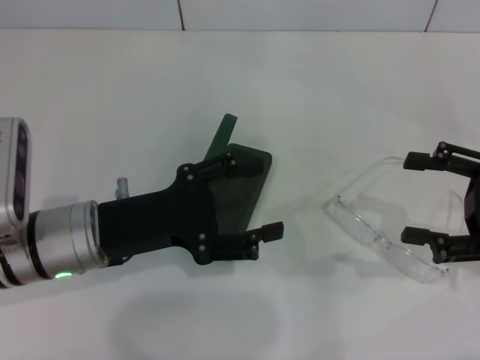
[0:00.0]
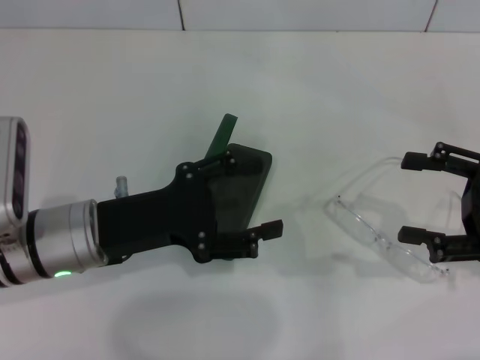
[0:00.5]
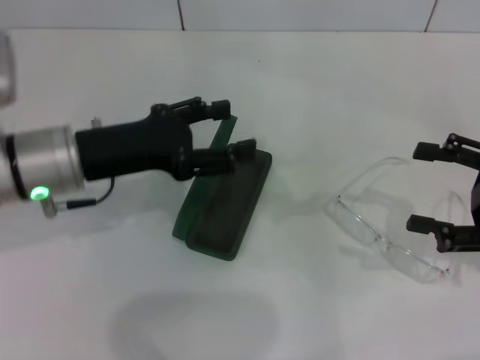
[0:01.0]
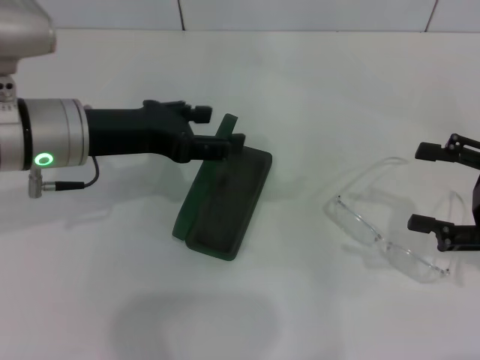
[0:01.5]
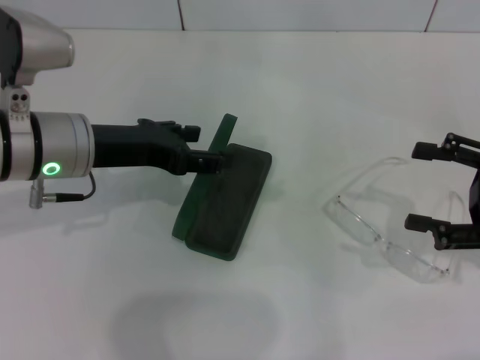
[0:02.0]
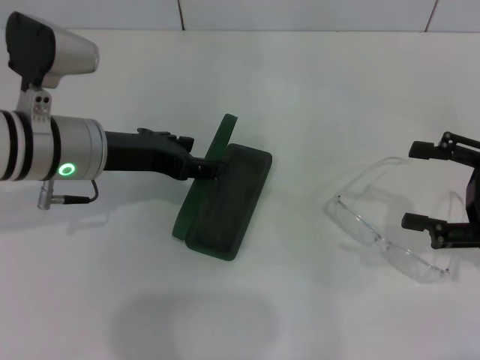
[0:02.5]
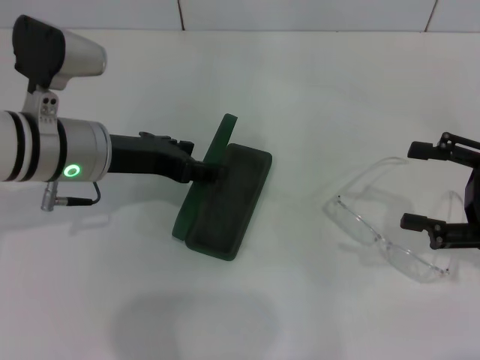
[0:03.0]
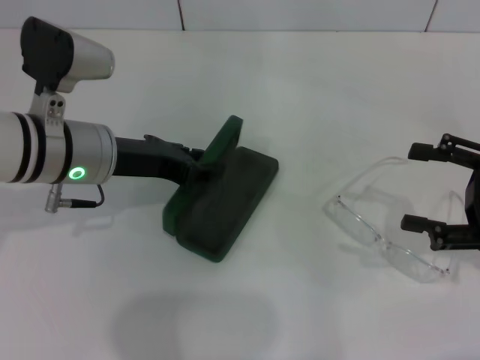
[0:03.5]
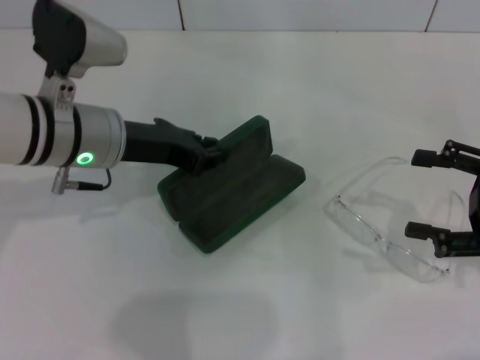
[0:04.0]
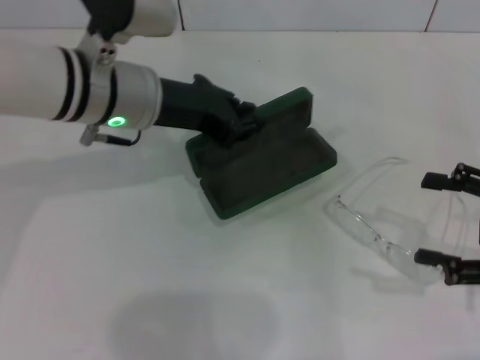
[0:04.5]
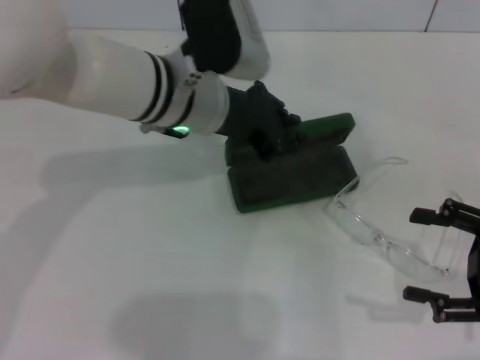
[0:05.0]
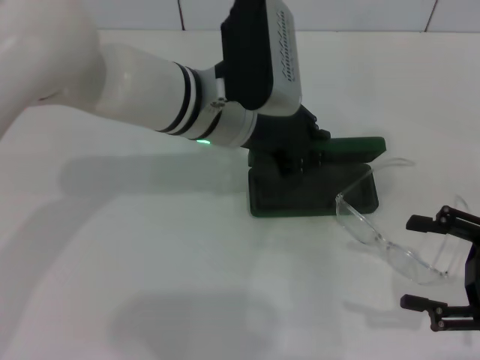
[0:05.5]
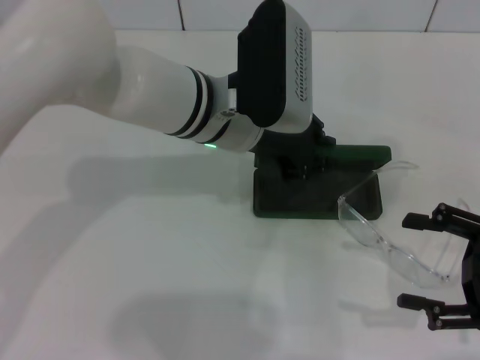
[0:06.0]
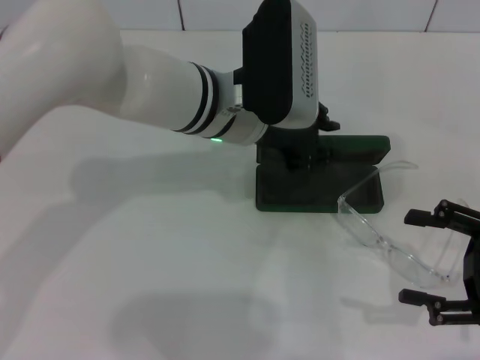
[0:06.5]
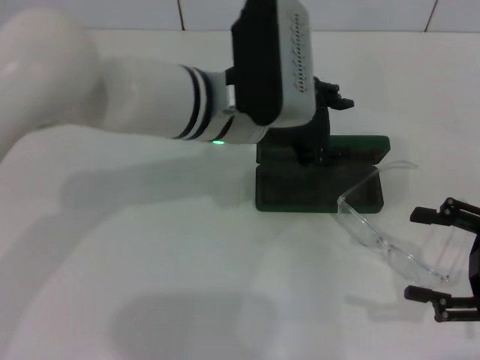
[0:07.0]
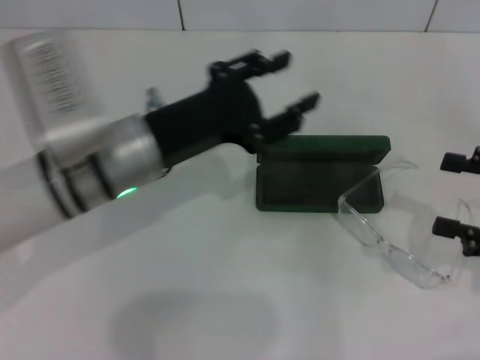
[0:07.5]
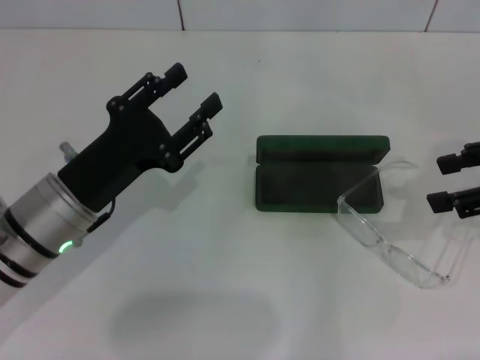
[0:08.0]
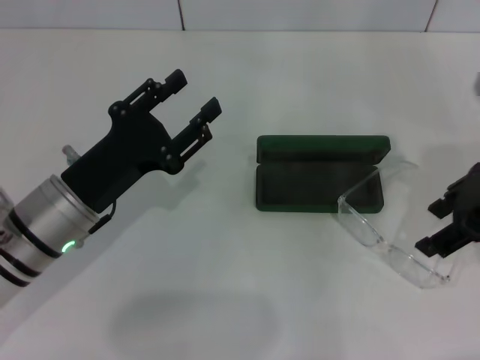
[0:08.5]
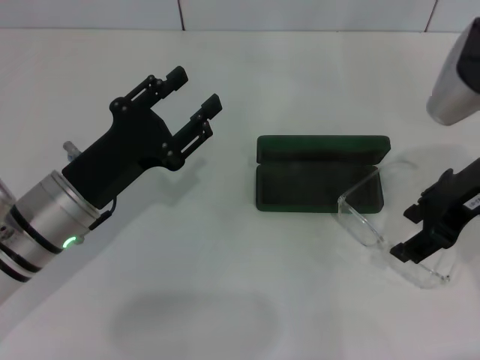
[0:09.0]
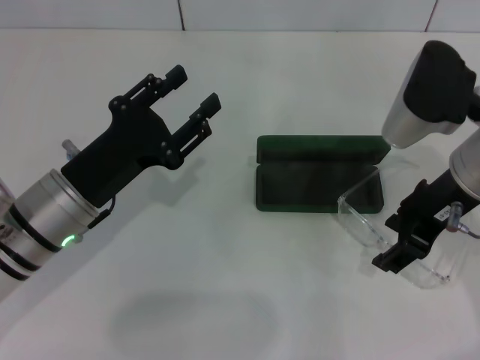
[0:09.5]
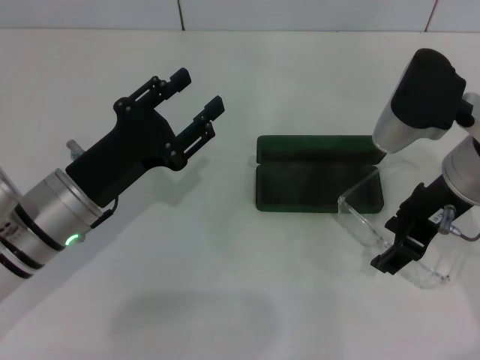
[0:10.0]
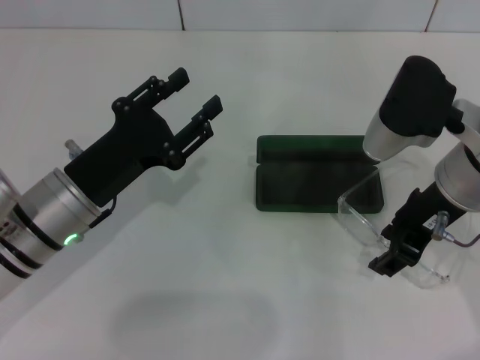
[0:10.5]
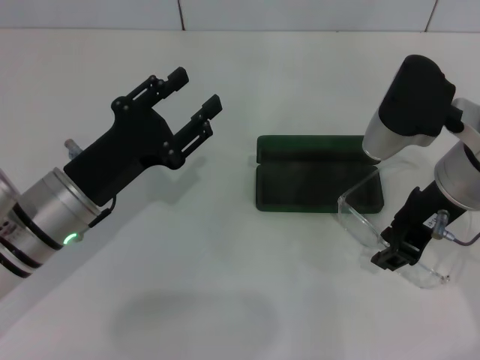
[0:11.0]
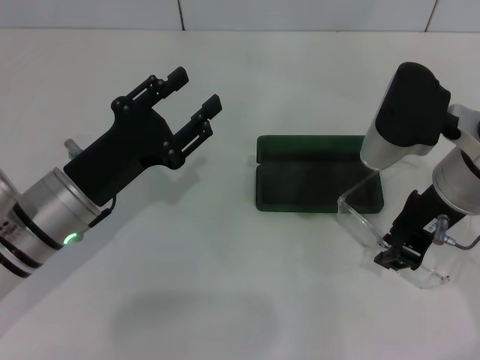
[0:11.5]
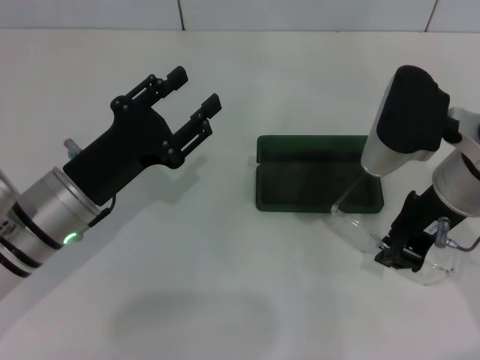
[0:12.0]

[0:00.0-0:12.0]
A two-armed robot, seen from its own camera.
Step, 0:00.0 to 0:03.0: Grab the glasses case with your left hand.
Step, 0:03.5 to 0:06.0: Place the glasses case in the center of the table with your left hand.
0:00.0 to 0:02.0: The left gripper travels forward and upward by some 10 cm.
0:02.0 to 0:04.0: The left gripper closes its fingers.
0:04.0 to 0:06.0: The right gripper shifts by some 5 cm. The left gripper shifts some 15 cm to the right.
0:06.0 to 0:08.0: The left gripper travels to the left, backward and downward by some 20 cm, and opens. The right gripper shifts roughly 15 cm upward and forward.
0:08.0 to 0:10.0: The right gripper shifts roughly 15 cm to the left.
0:10.0 to 0:12.0: The right gripper closes.

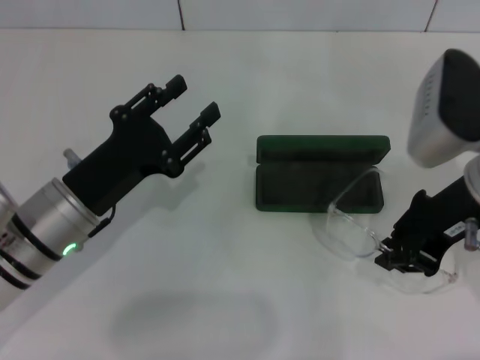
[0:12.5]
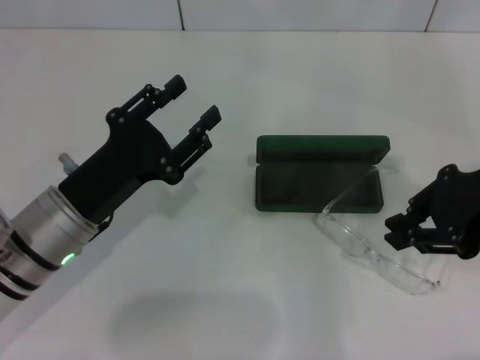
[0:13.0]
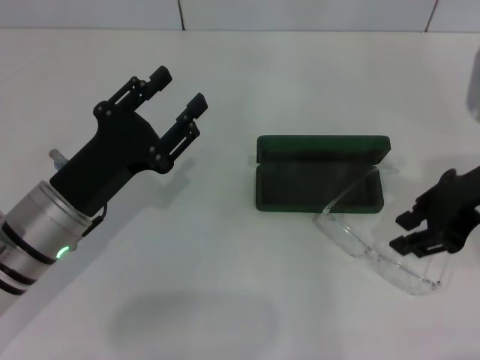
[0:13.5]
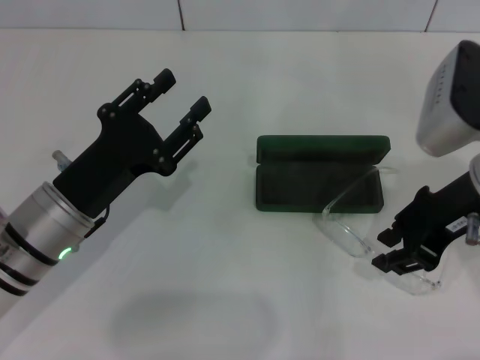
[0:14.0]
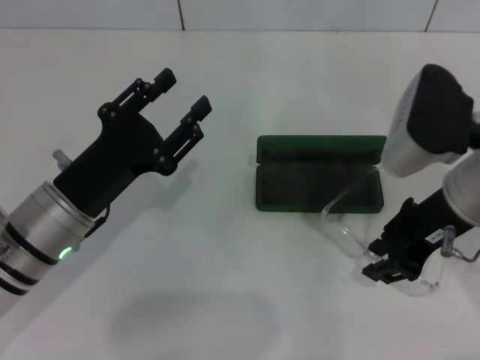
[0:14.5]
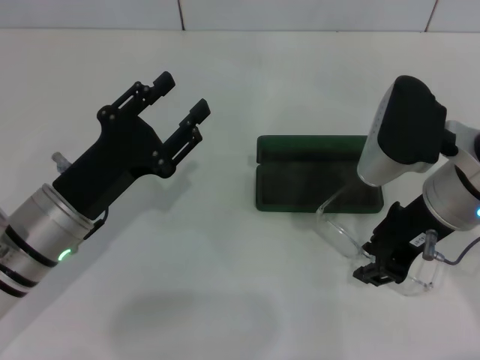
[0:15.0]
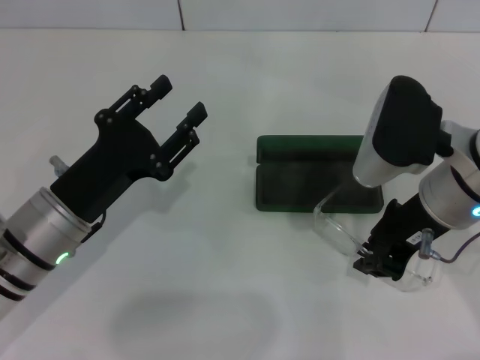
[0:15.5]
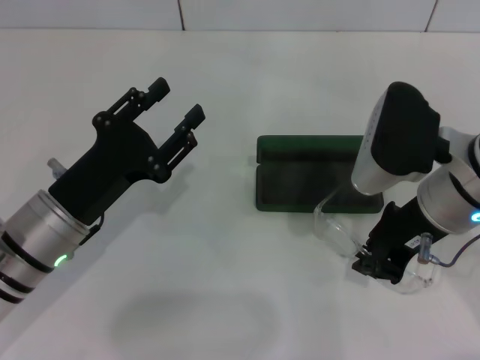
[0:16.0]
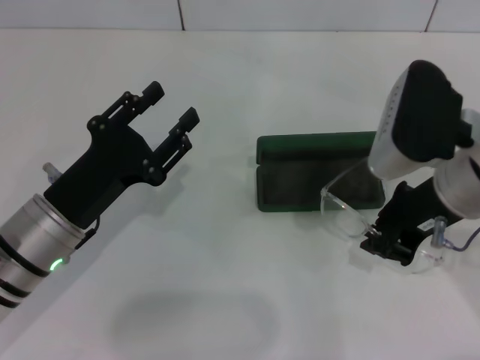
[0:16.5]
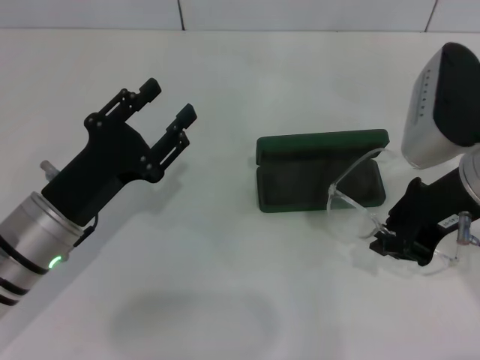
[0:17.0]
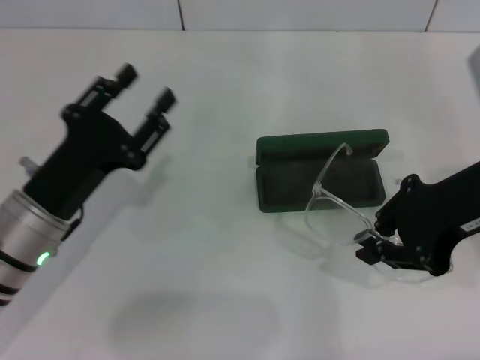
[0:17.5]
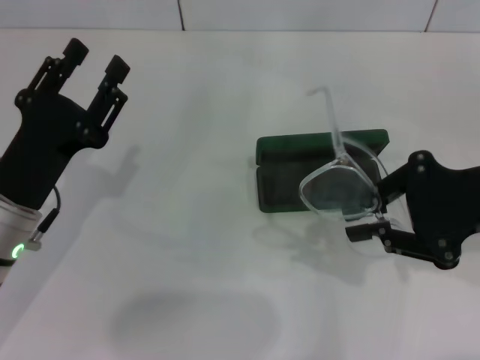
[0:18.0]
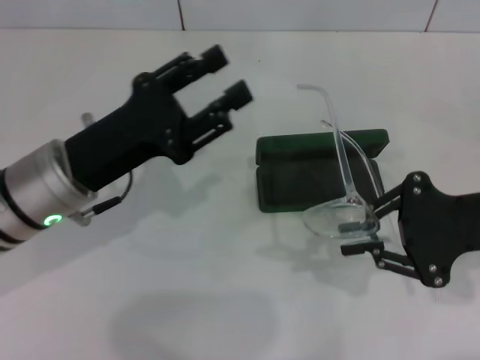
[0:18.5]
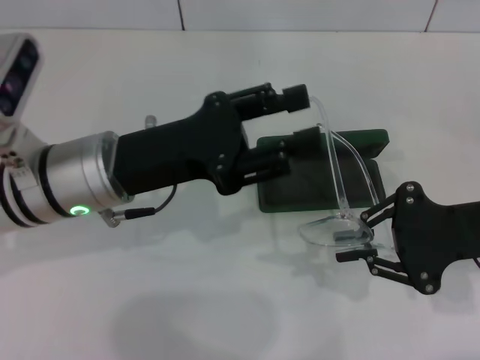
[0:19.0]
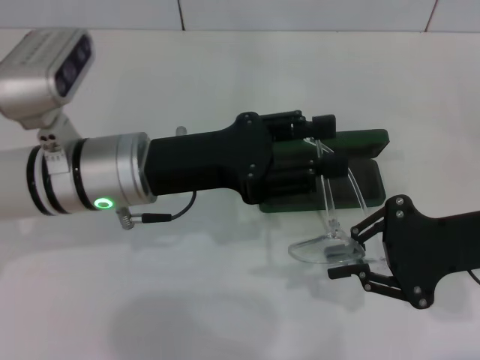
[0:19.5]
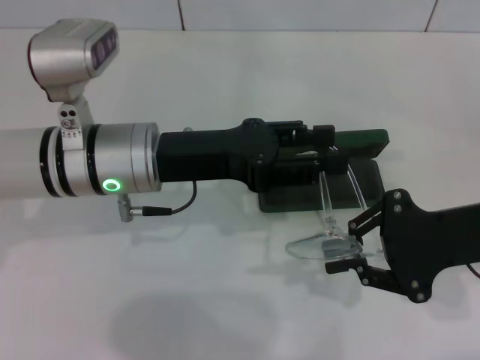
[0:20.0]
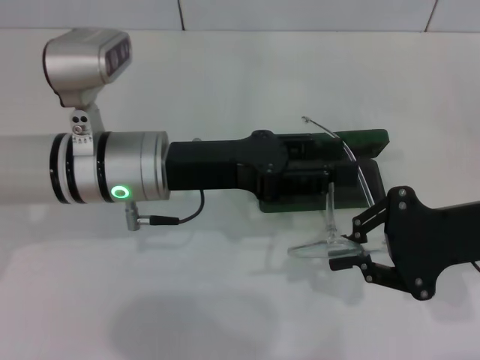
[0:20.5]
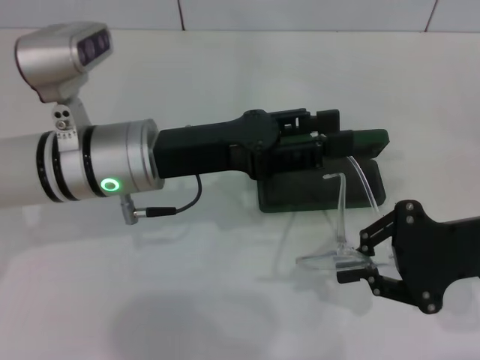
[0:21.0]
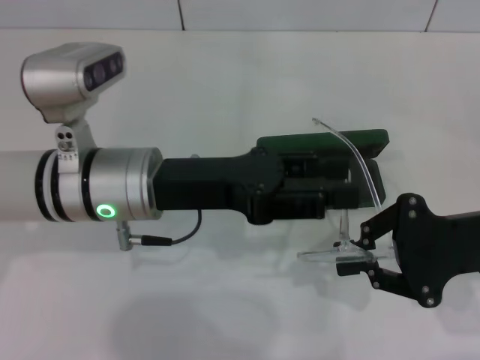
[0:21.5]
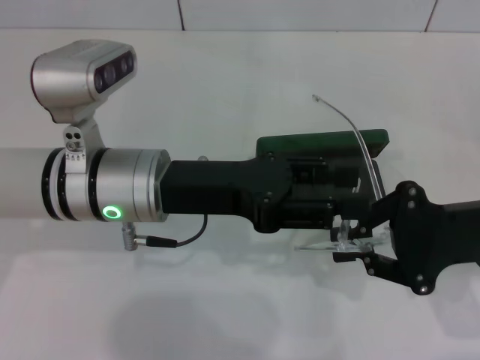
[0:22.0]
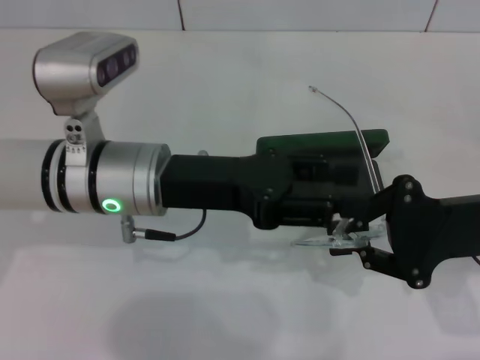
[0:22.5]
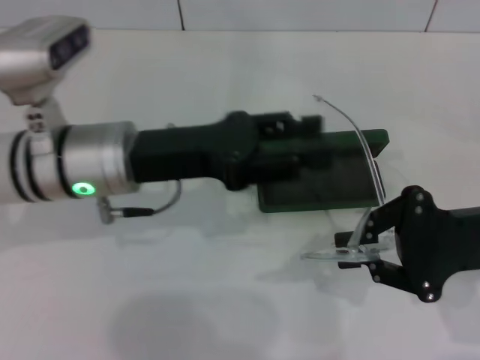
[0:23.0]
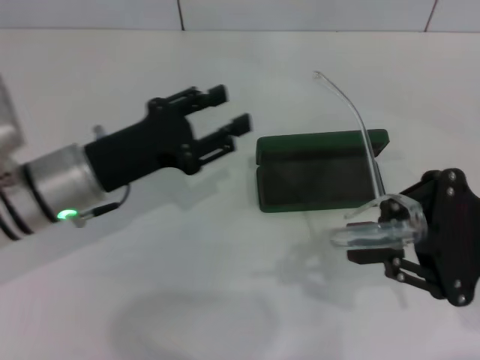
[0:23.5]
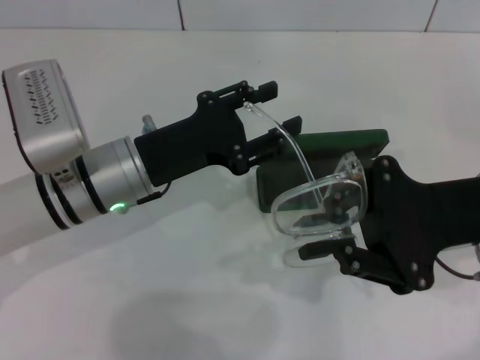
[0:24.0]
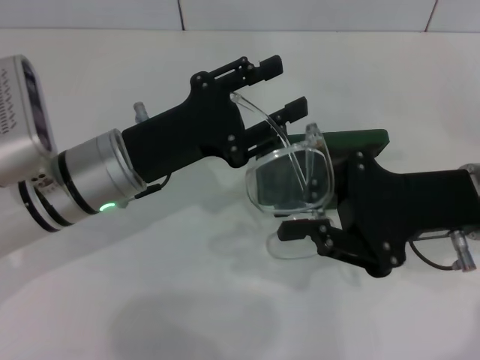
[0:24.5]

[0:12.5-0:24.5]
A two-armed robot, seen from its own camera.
0:12.5 to 0:16.5: The grippers move only a little.
0:16.5 to 0:18.5: The left gripper is displaced upward by some 5 cm, while the right gripper is displaced to the right by approximately 10 cm.
0:18.5 to 0:20.5: The left gripper moves to the right, roughly 5 cm.
0:20.5 to 0:22.5: There are only small adjustments of the grippers.
0:22.5 to 0:24.5: The right gripper ends up some 5 cm from where it was.

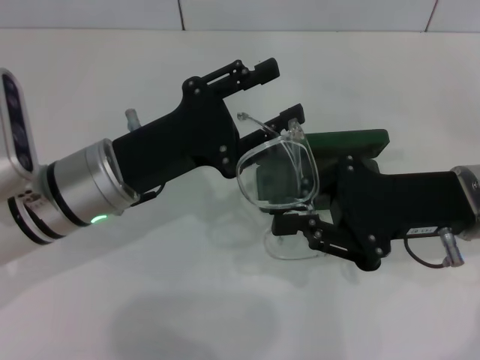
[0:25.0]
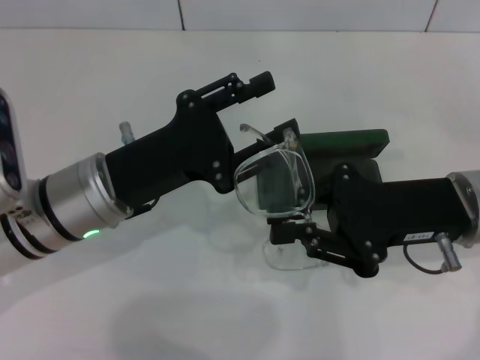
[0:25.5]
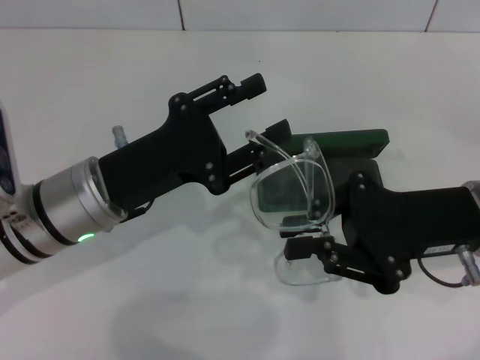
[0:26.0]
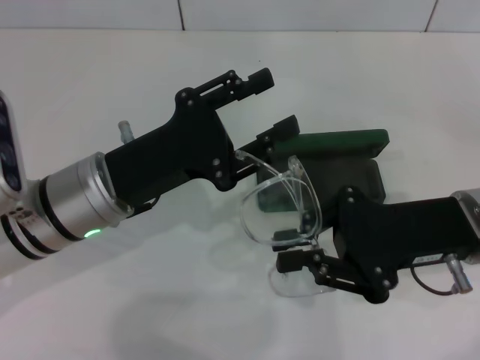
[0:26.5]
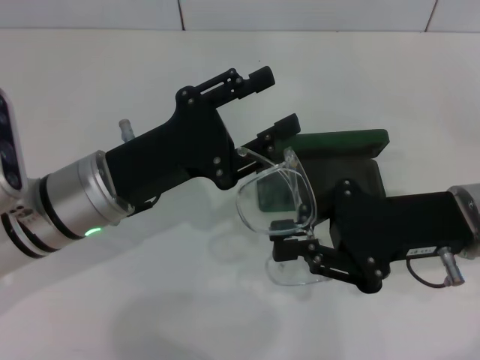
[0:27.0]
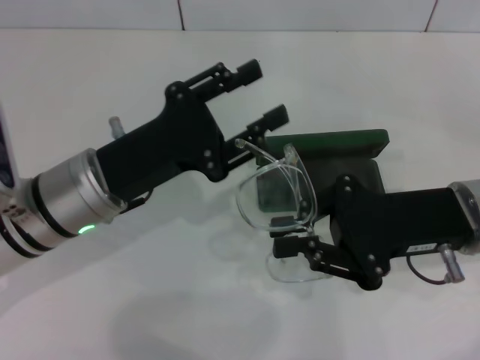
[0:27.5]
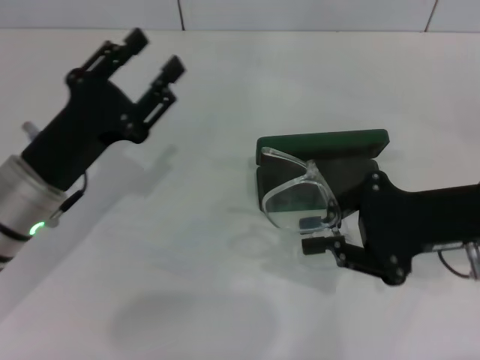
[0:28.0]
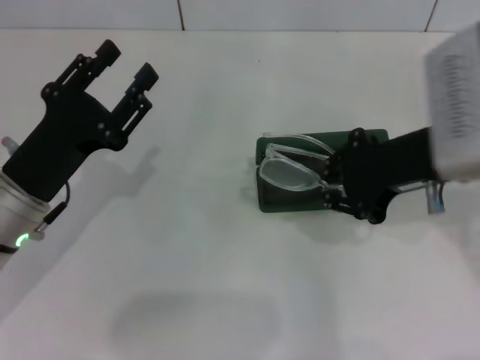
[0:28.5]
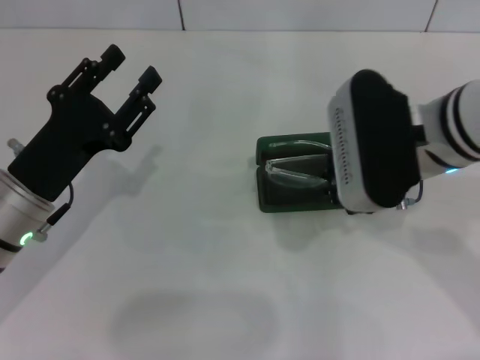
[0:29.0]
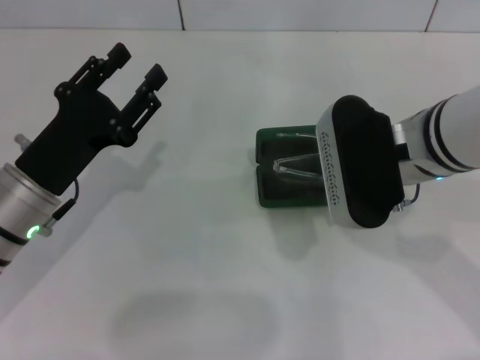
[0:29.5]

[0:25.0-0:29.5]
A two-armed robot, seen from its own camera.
0:25.0 to 0:27.0: The grippers move only a little.
0:27.0 to 0:29.5: Both grippers travel together to the left, about 5 cm.
